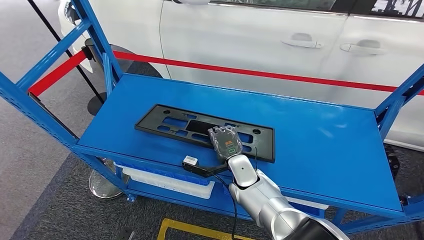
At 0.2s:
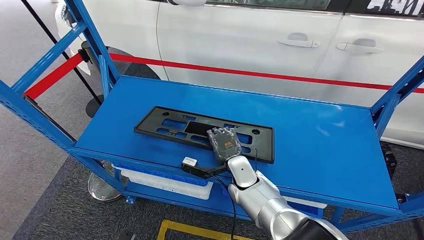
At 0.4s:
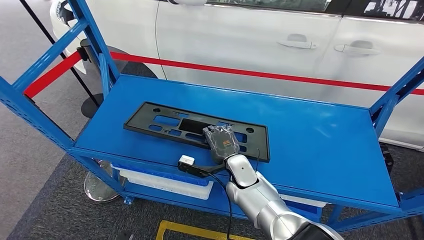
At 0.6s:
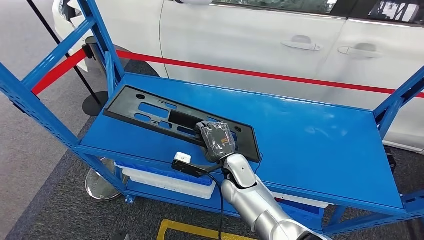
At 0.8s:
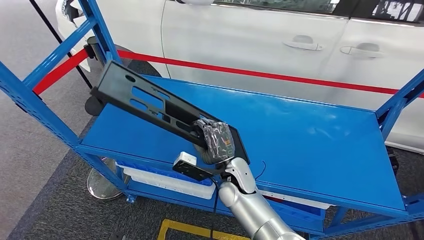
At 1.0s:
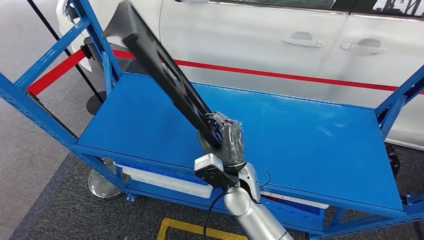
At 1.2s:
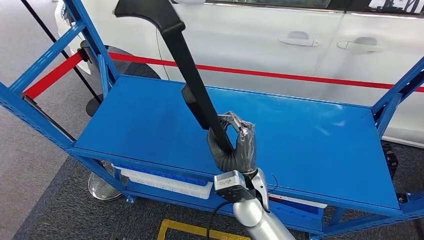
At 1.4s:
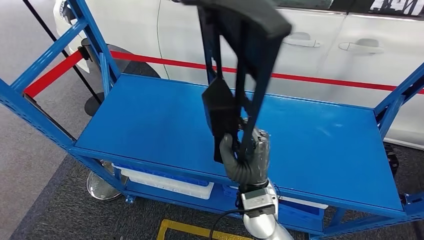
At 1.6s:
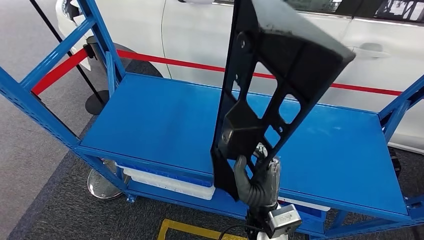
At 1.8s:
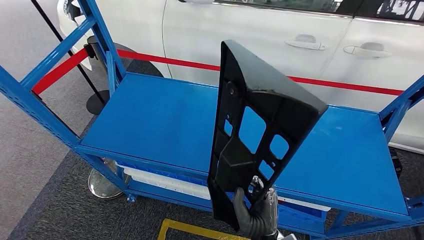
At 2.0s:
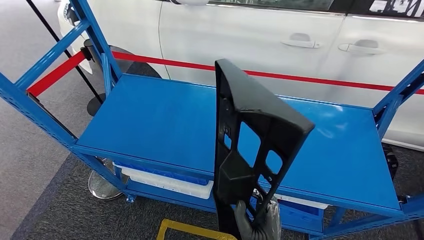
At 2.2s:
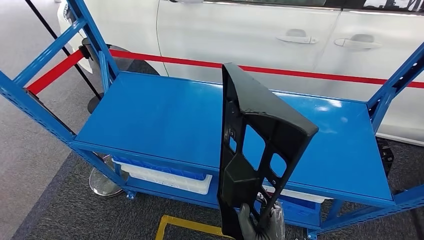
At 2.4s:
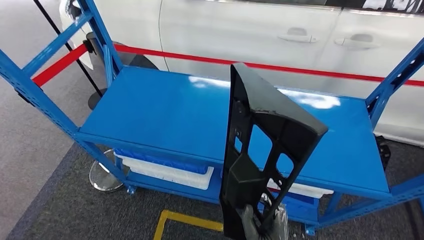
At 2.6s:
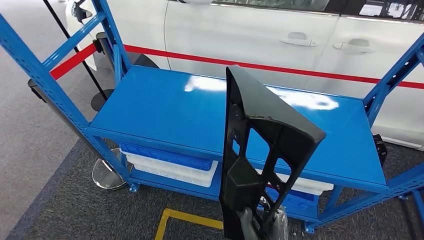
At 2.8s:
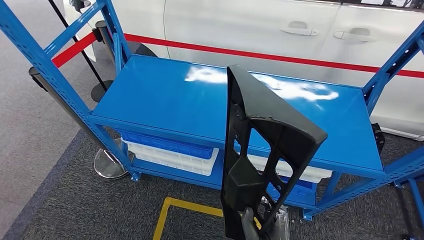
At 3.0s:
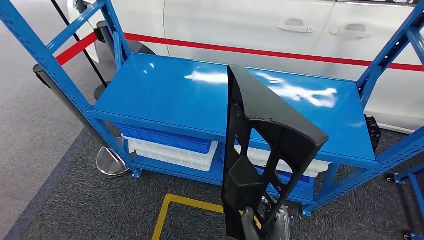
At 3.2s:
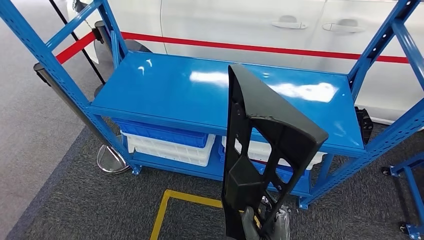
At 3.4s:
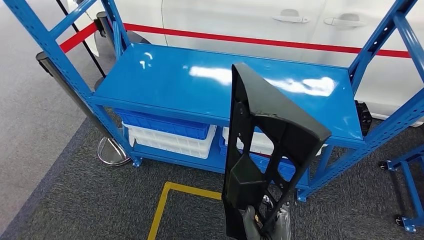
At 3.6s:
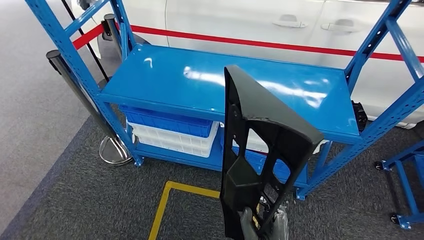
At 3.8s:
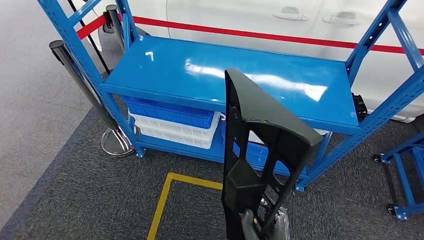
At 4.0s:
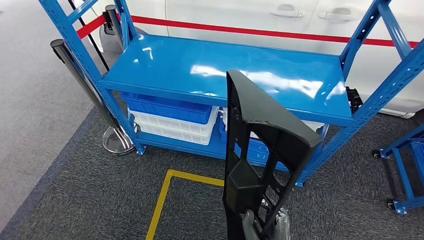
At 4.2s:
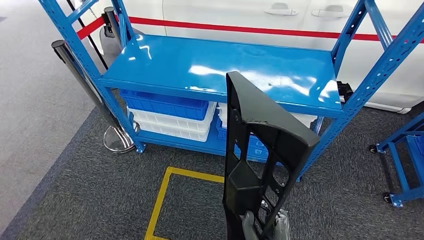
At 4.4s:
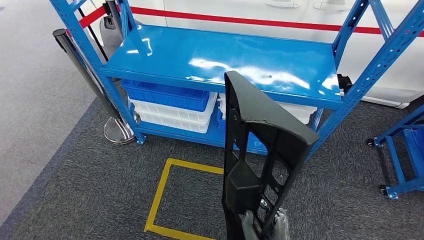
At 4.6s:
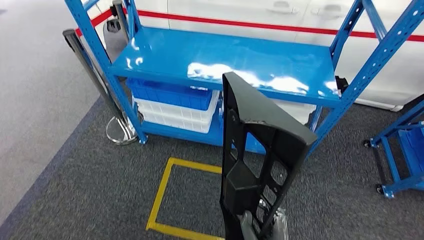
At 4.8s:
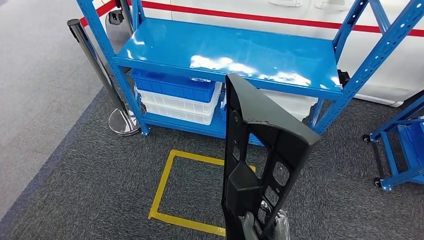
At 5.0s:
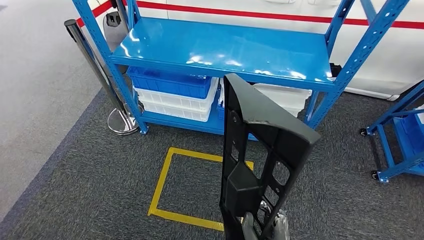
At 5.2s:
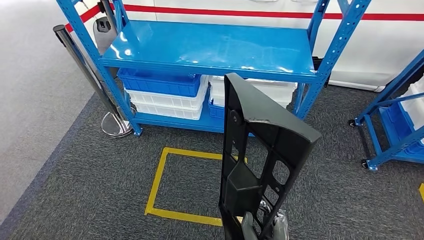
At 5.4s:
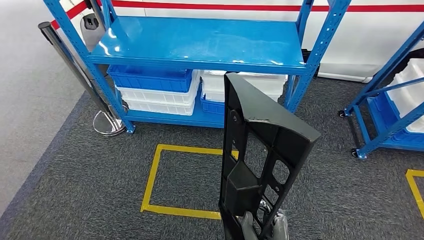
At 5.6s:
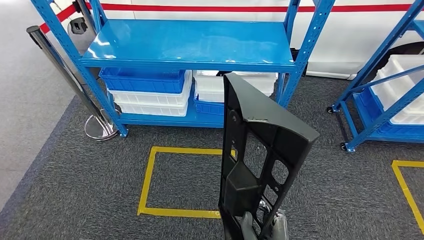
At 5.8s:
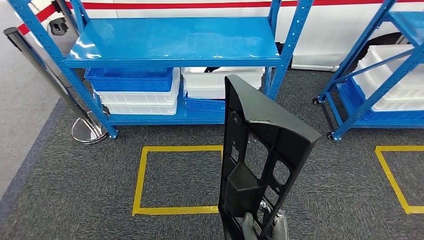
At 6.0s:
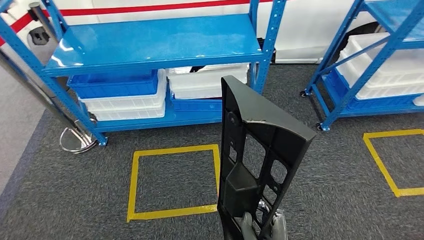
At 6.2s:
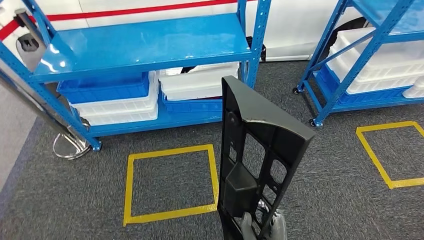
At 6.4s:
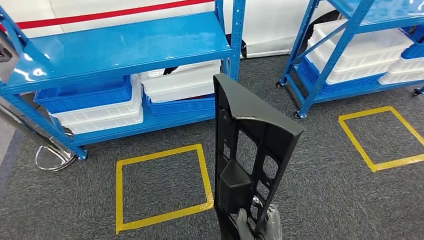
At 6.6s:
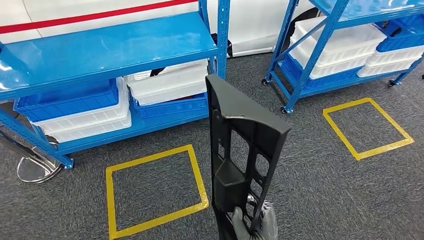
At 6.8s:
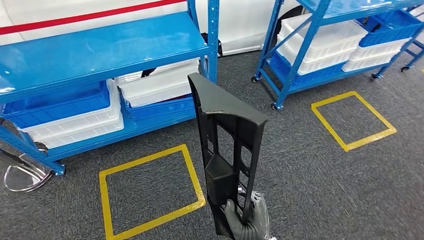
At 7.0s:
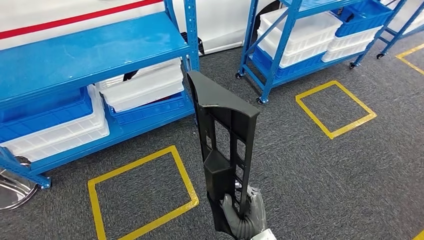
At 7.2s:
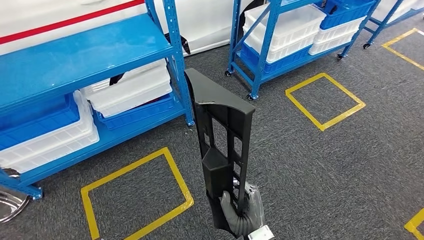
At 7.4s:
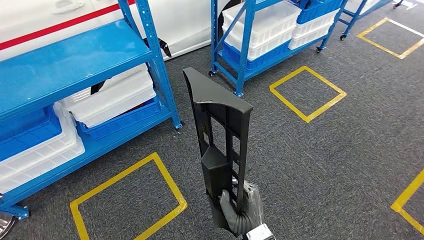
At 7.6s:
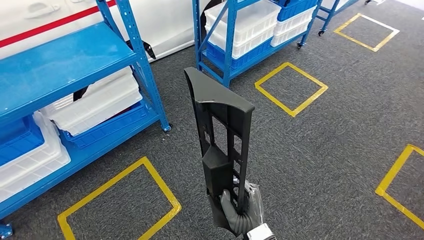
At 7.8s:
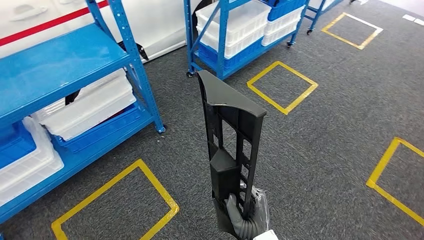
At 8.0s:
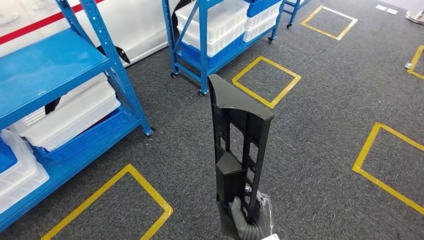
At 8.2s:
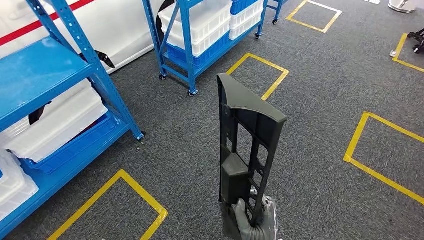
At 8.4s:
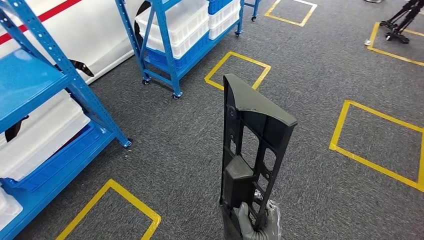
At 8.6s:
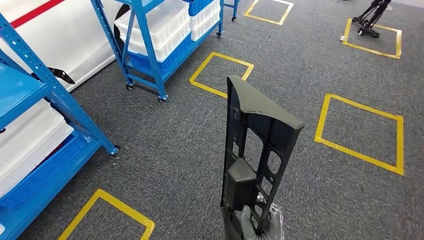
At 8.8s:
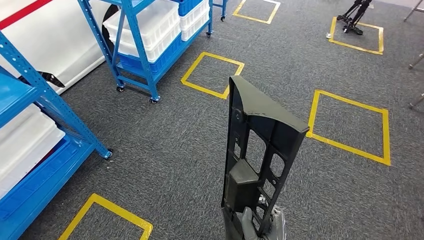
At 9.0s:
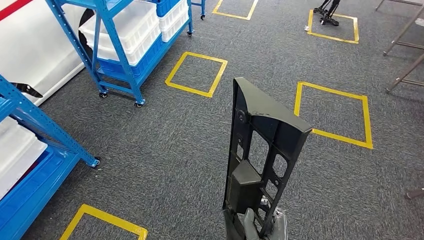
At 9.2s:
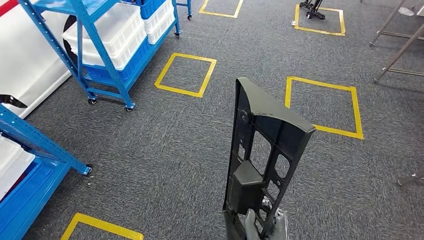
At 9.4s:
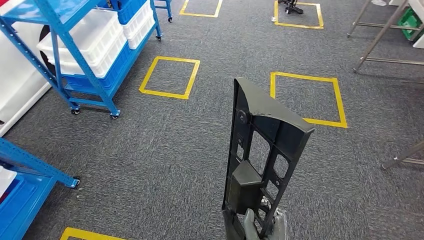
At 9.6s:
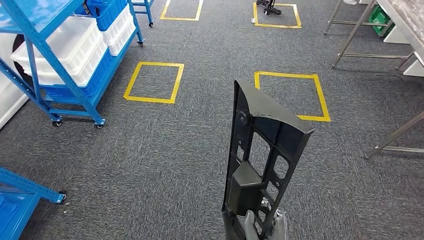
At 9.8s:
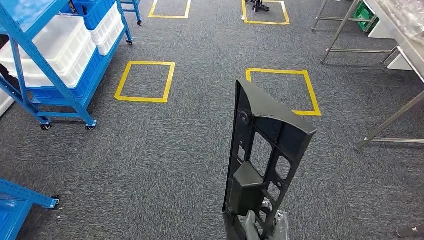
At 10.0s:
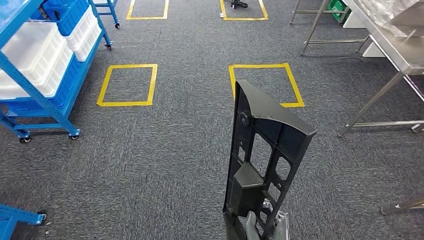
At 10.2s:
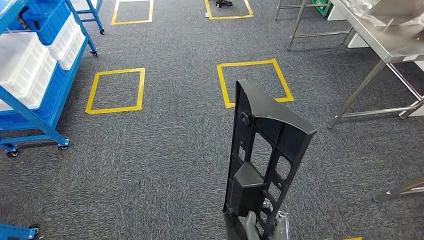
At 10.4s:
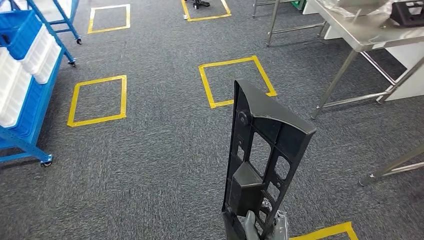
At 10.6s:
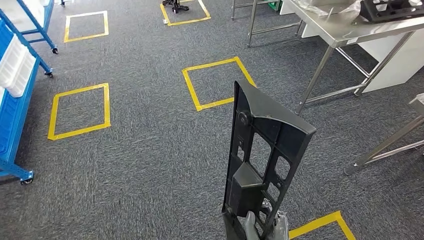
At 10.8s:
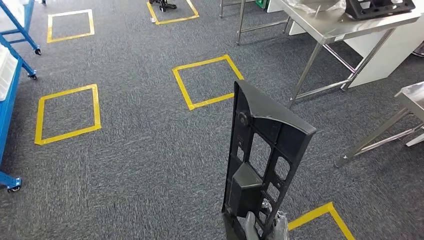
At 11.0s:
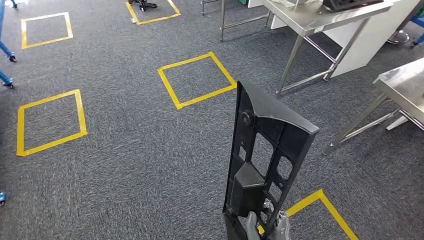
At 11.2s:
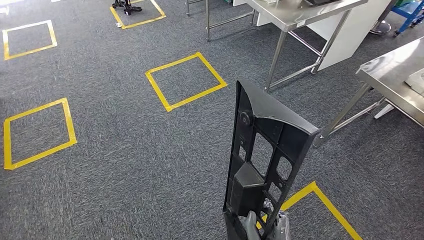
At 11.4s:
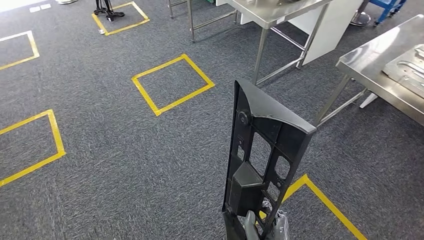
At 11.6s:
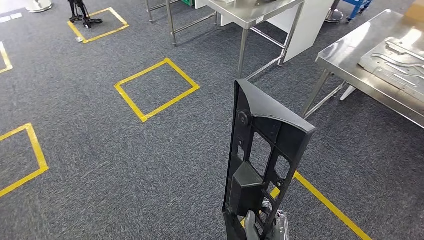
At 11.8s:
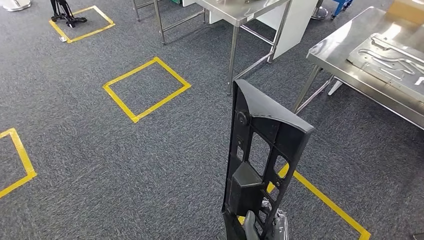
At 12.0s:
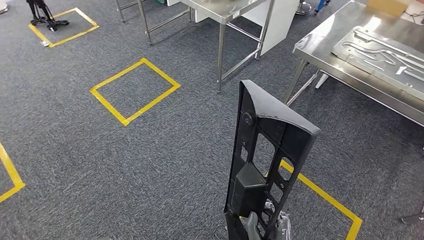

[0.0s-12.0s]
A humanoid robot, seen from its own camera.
Step, 0.0s to 2.4s: Pick up the large material from the shelf.

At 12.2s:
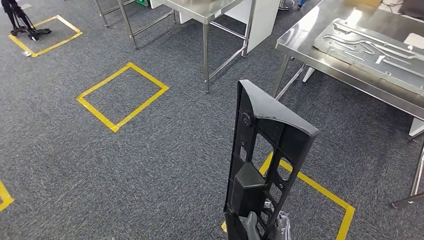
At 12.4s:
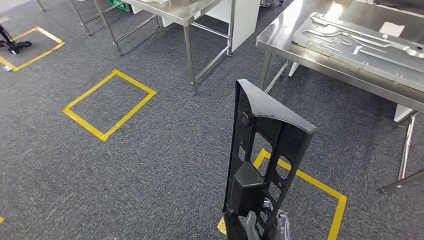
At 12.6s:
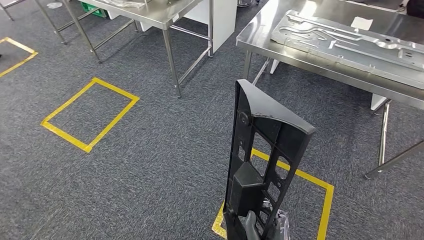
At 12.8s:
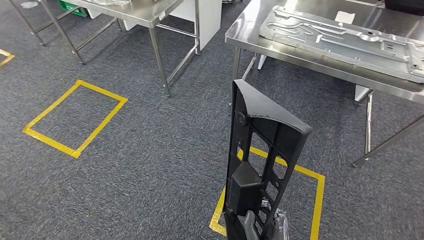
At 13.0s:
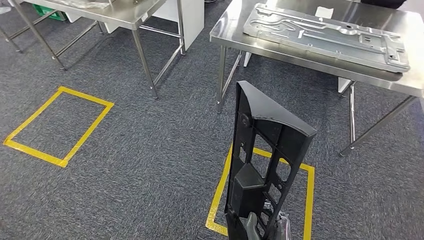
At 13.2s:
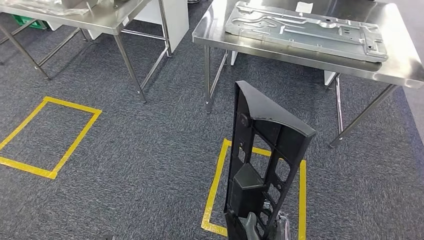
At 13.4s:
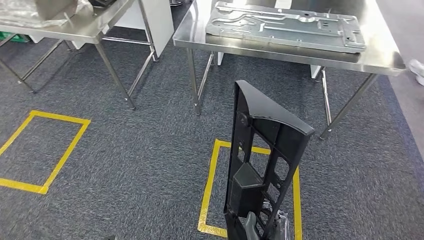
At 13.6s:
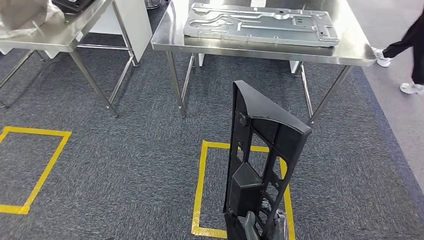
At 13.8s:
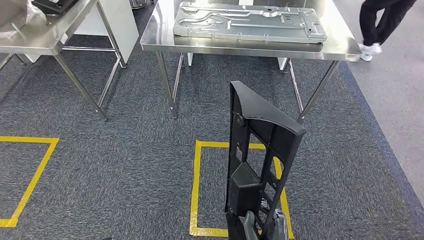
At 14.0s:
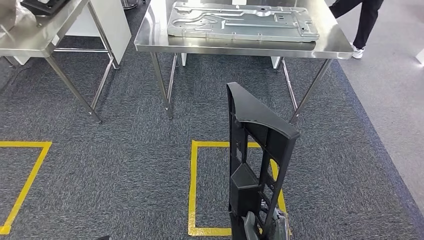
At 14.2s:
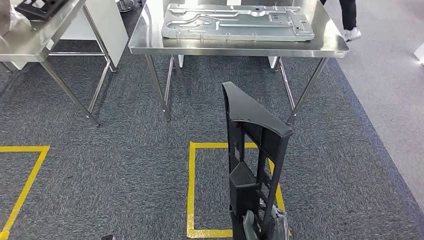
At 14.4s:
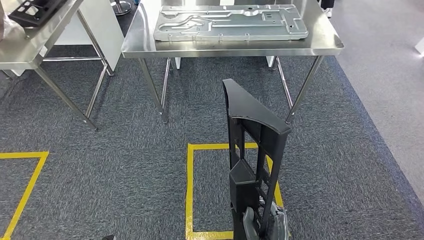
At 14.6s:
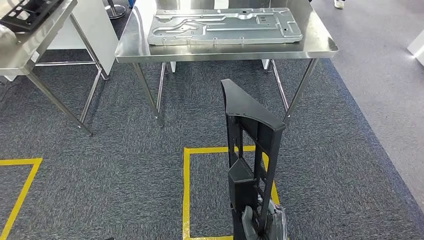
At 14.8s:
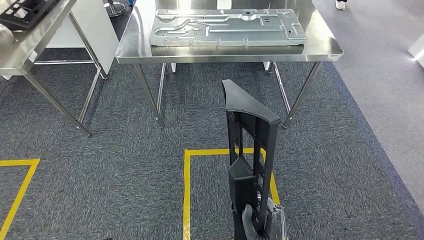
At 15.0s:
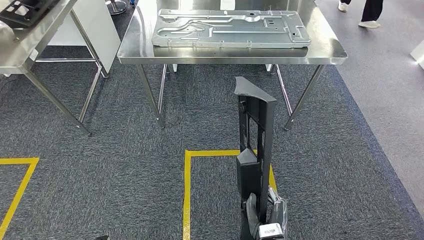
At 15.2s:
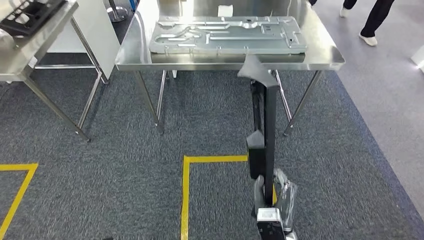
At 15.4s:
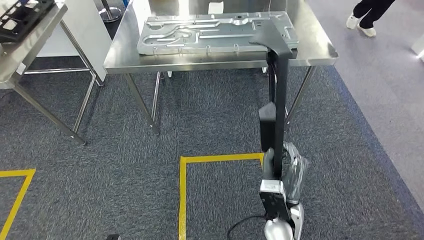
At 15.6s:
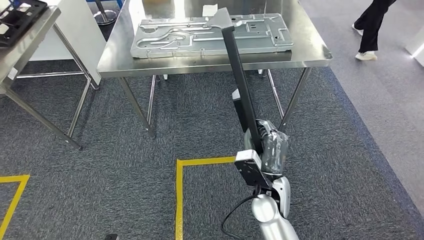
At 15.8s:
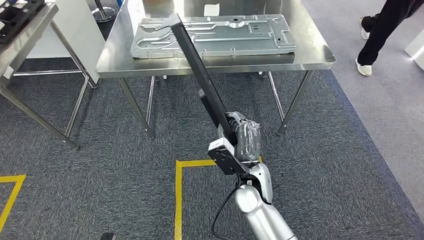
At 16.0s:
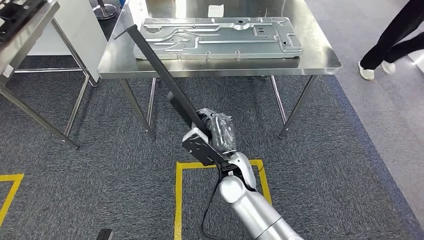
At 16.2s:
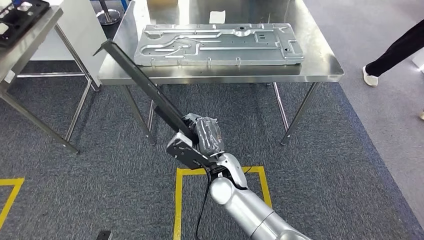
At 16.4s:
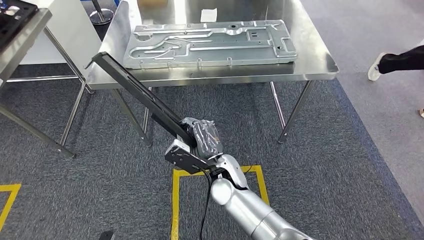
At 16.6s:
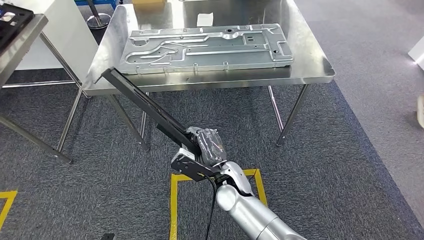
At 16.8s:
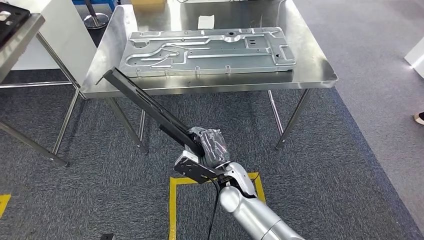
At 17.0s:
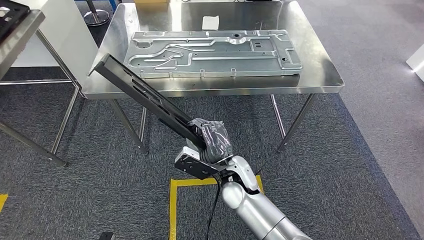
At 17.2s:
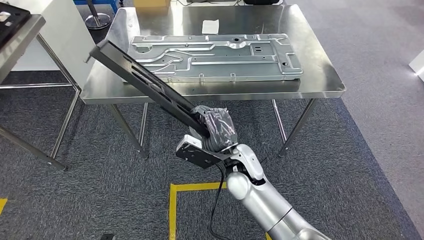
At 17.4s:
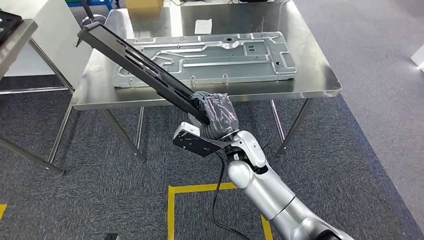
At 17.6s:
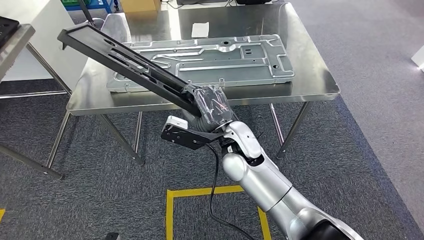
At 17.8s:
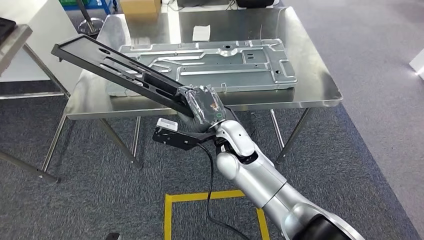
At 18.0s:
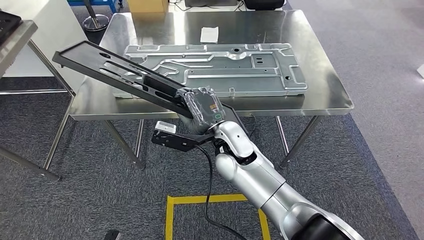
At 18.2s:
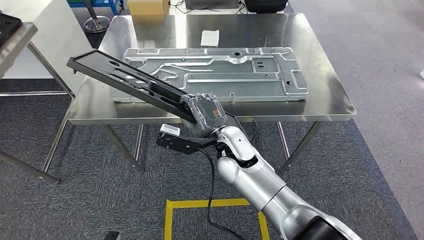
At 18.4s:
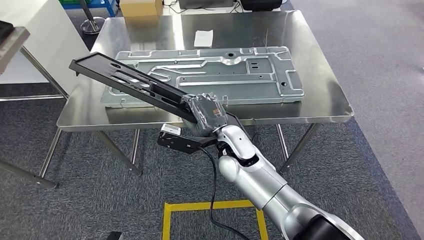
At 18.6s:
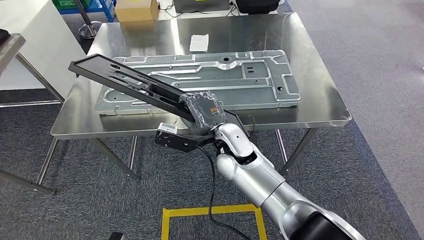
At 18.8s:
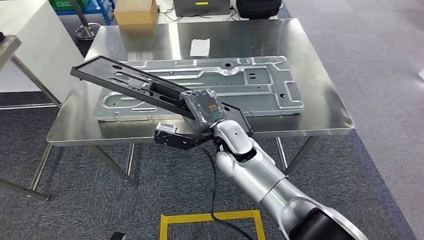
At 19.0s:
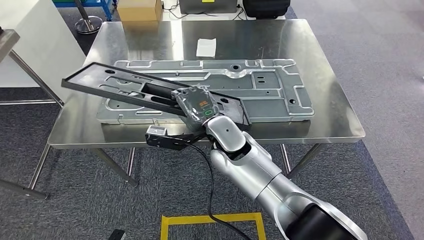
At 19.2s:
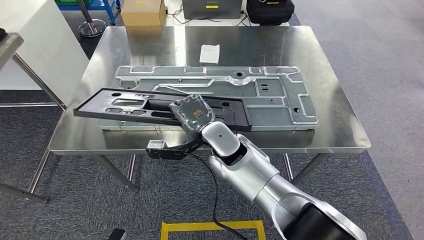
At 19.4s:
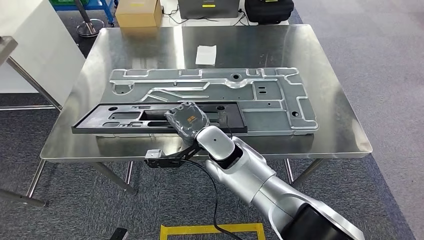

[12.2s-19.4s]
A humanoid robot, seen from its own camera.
Step, 12.2s to 18.4s: Move the large material to the workbench.
